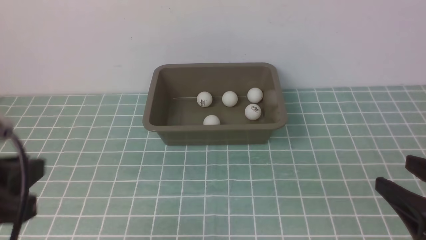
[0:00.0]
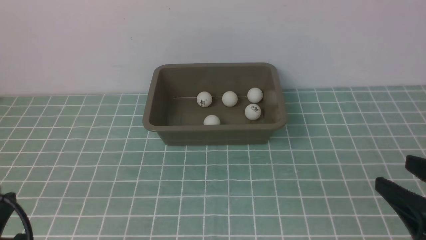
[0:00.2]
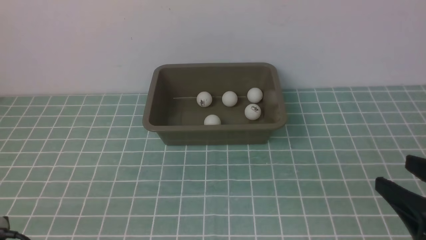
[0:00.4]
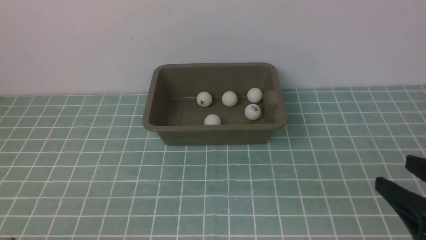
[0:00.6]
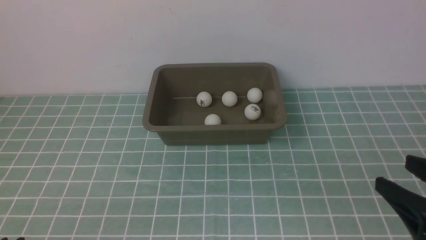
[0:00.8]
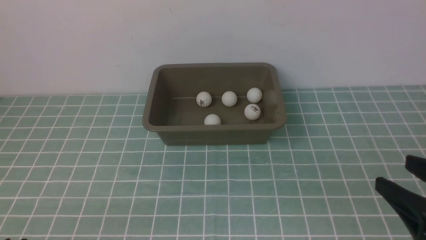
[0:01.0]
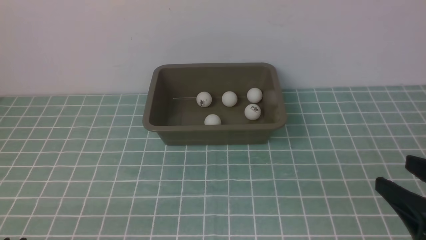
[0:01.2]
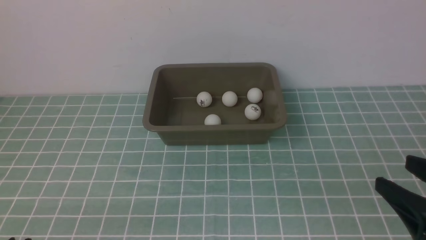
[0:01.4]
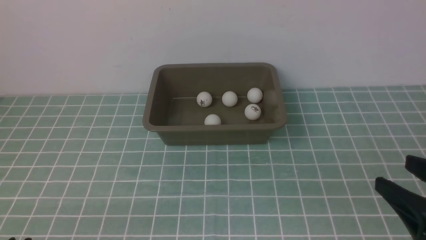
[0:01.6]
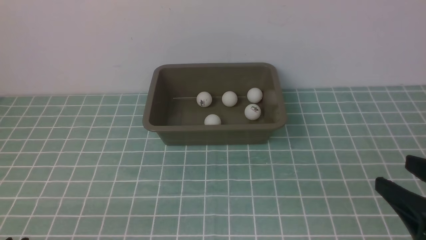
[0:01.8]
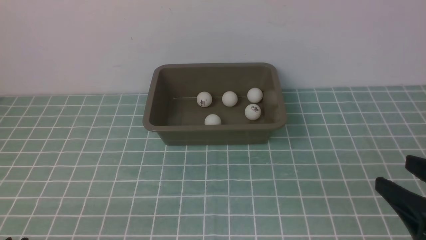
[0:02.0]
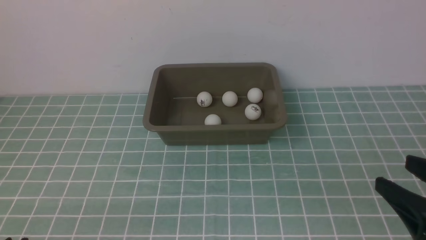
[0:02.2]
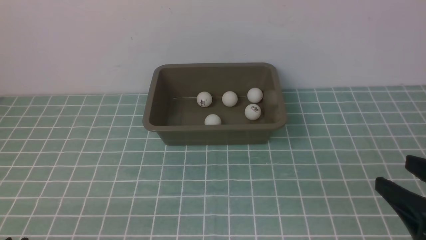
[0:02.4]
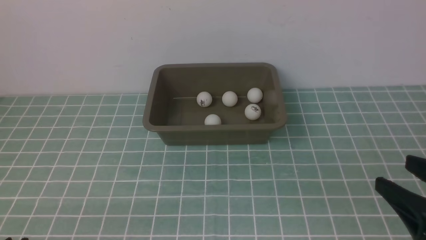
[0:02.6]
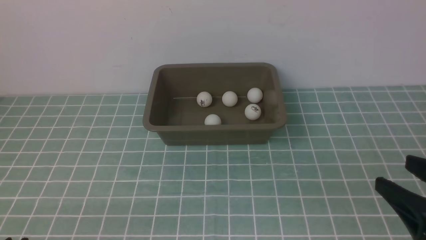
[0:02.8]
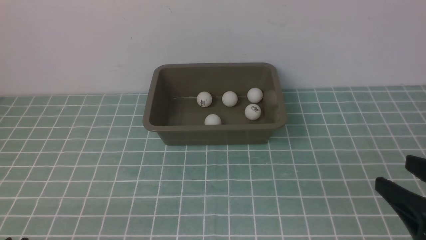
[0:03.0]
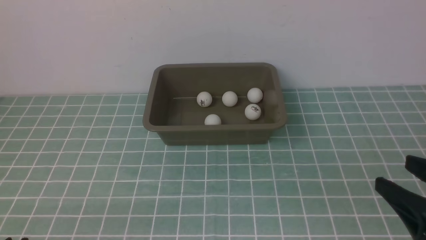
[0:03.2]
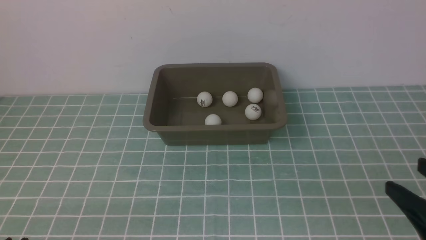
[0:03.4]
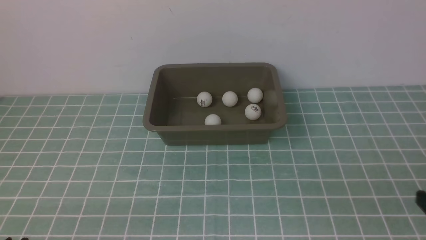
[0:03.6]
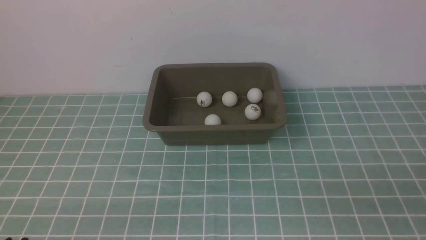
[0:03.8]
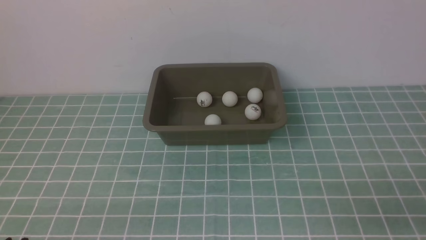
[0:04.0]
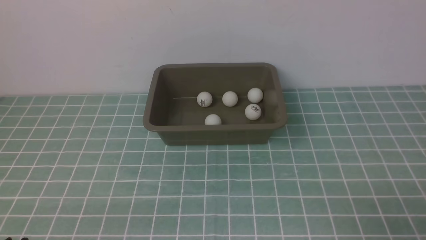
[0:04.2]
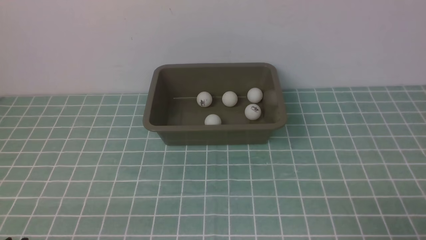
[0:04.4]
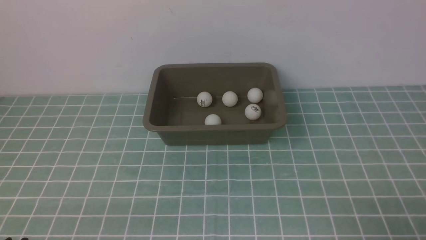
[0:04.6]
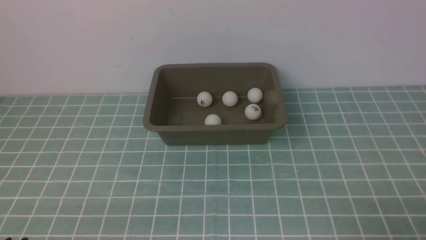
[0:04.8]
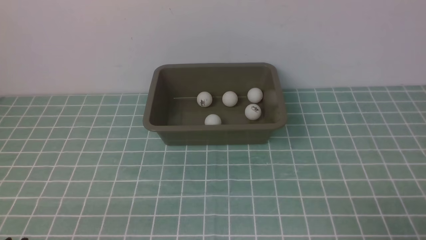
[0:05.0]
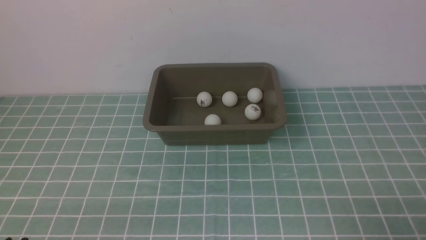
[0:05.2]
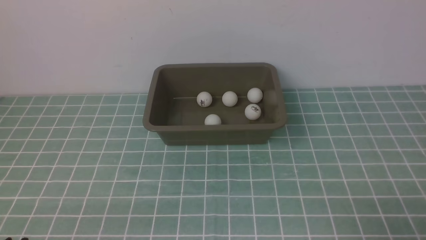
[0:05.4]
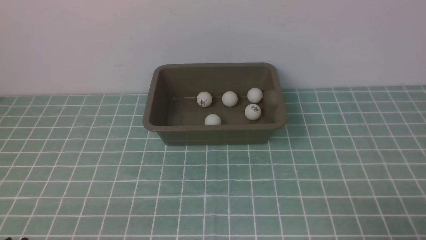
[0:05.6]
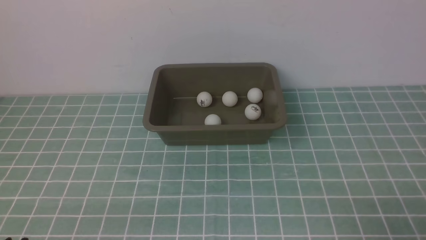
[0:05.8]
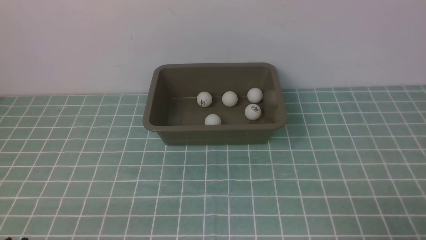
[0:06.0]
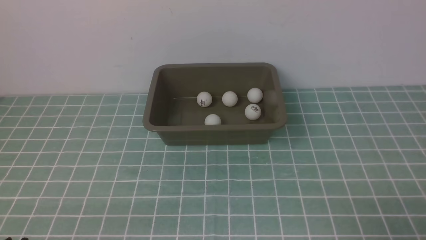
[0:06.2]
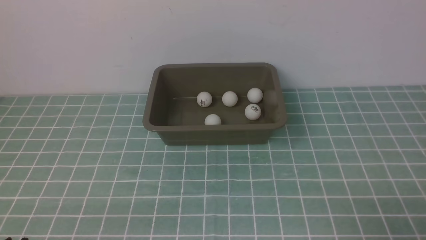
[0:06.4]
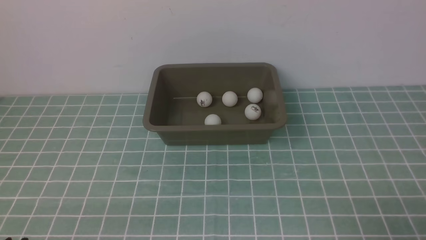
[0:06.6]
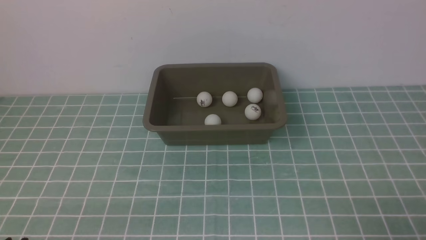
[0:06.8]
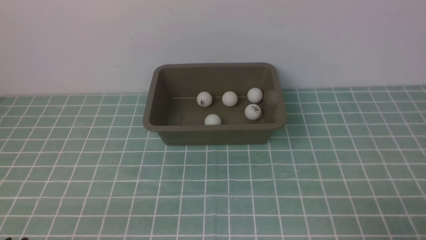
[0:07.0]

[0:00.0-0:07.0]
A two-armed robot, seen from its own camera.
0:00.0 to 0:01.4: The left gripper moves downward and backward, approximately 15 cm.
0:01.4 to 0:02.8: Both grippers stay put.
0:02.8 to 0:04.2: The right gripper shifts roughly 10 cm downward.
0:04.2 to 0:07.0: Both grippers stay put.

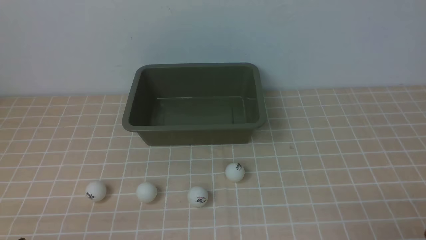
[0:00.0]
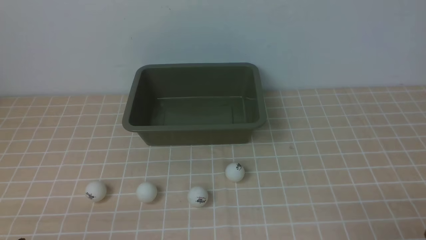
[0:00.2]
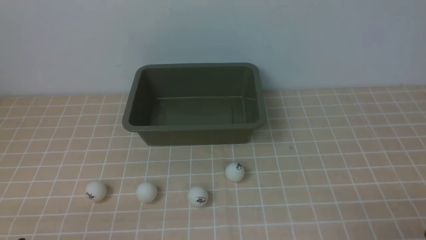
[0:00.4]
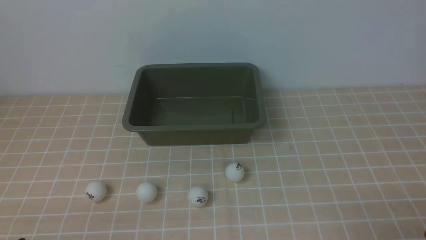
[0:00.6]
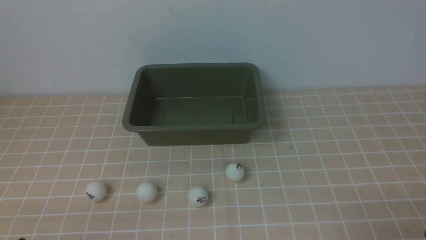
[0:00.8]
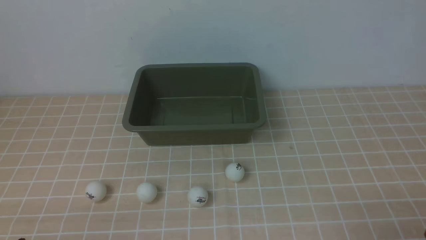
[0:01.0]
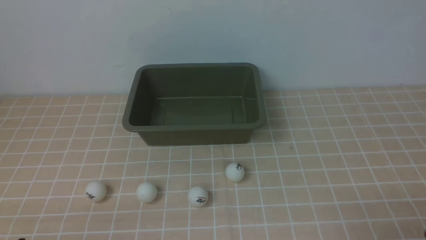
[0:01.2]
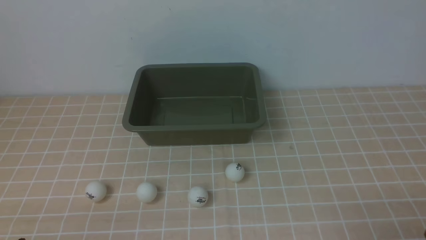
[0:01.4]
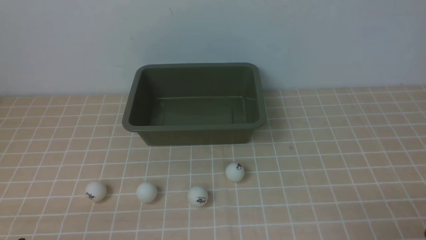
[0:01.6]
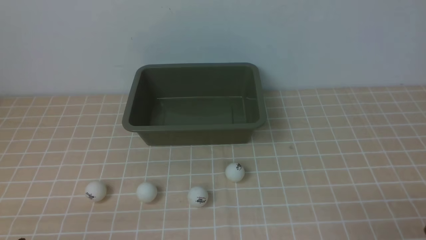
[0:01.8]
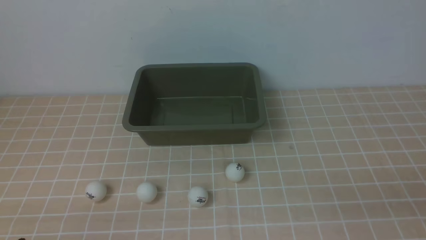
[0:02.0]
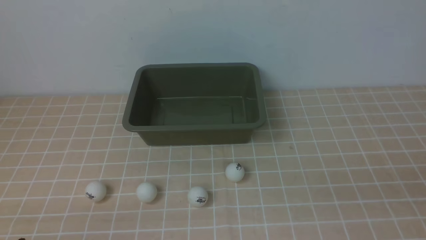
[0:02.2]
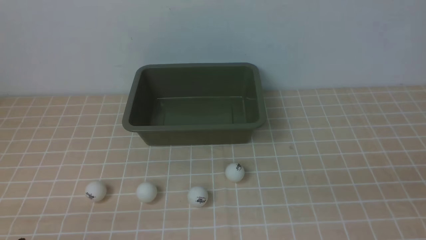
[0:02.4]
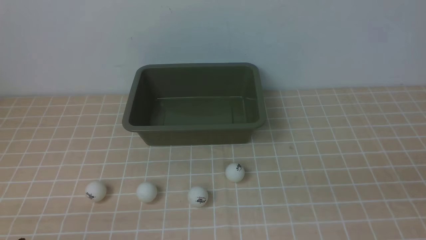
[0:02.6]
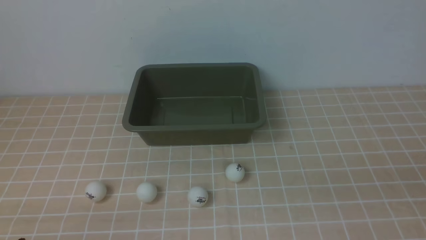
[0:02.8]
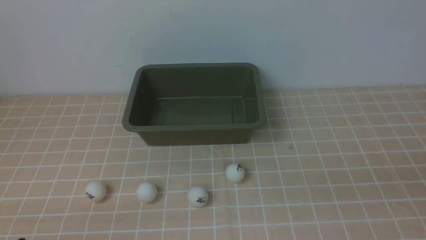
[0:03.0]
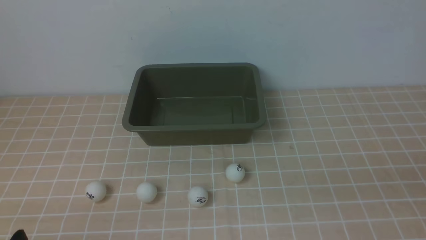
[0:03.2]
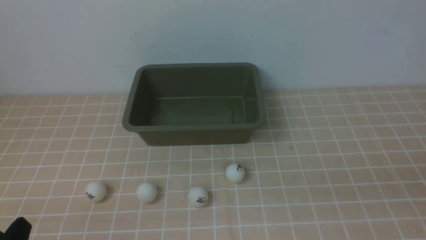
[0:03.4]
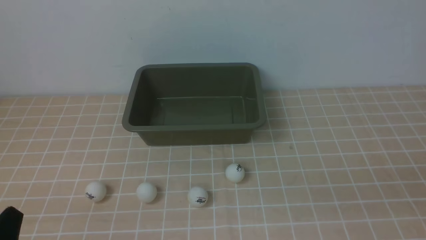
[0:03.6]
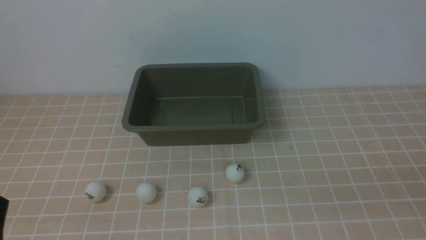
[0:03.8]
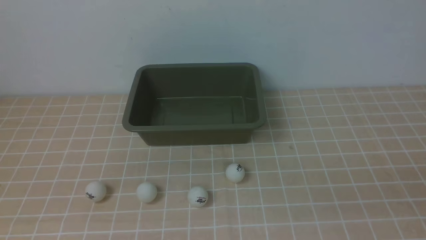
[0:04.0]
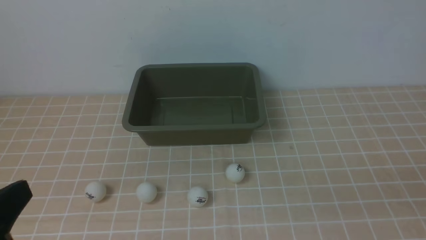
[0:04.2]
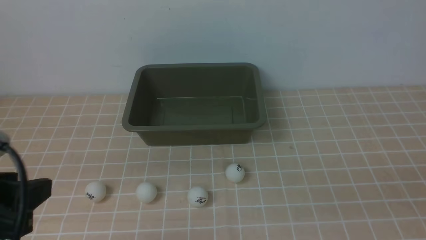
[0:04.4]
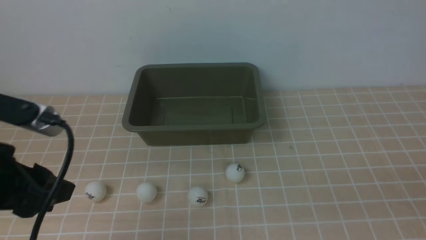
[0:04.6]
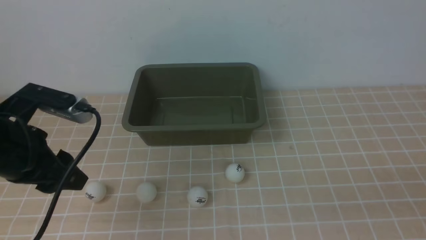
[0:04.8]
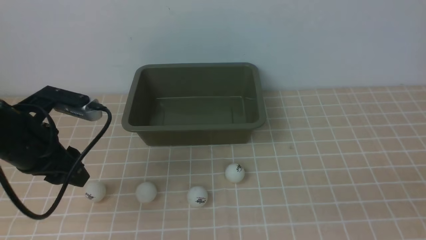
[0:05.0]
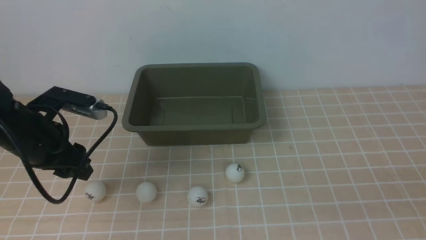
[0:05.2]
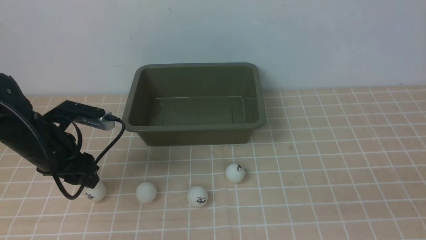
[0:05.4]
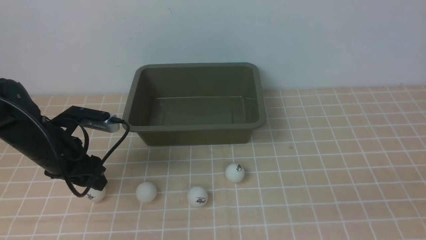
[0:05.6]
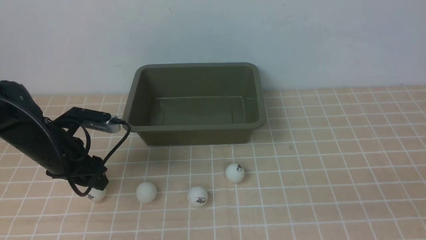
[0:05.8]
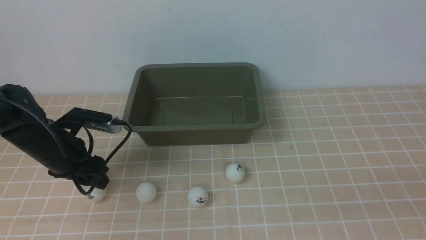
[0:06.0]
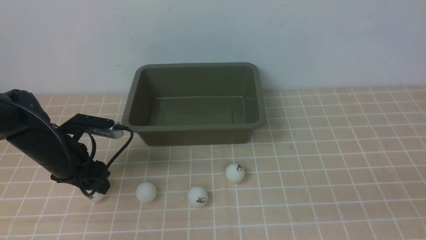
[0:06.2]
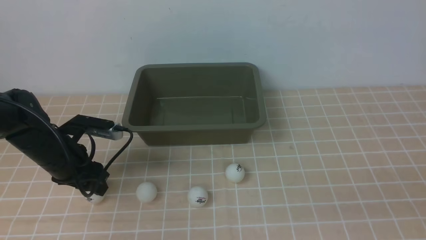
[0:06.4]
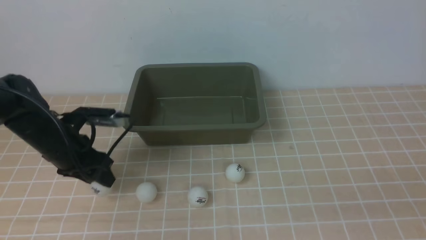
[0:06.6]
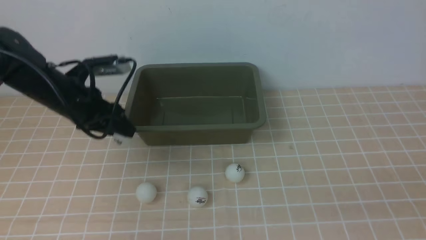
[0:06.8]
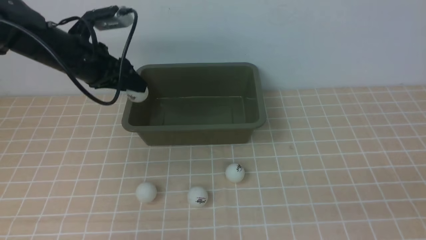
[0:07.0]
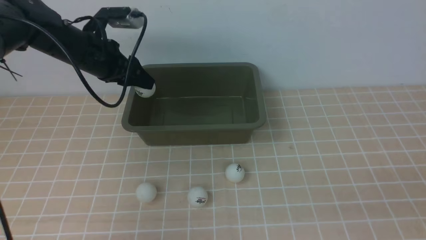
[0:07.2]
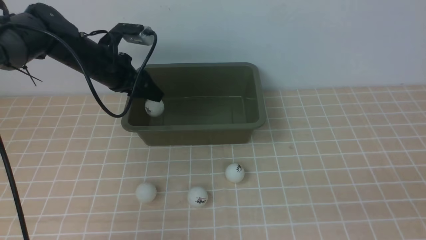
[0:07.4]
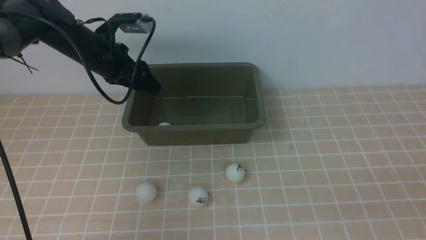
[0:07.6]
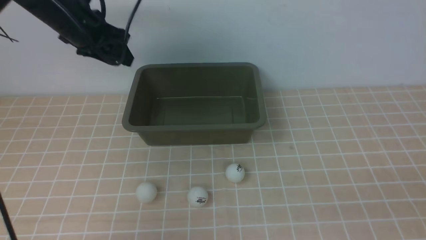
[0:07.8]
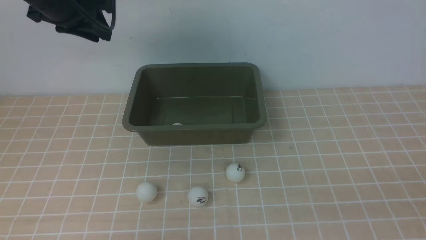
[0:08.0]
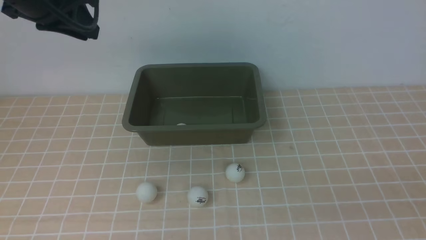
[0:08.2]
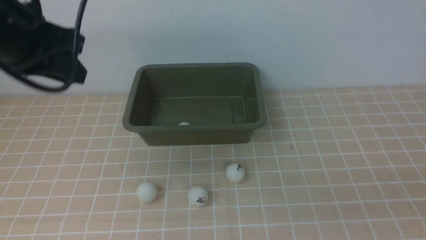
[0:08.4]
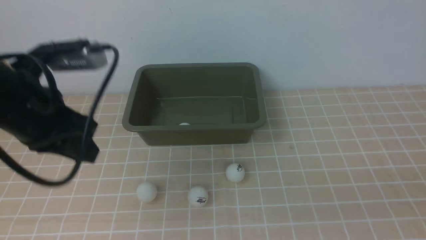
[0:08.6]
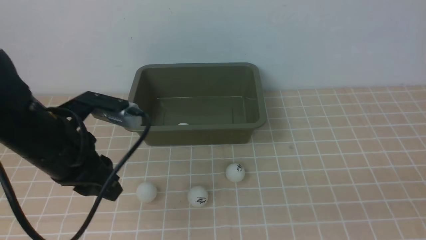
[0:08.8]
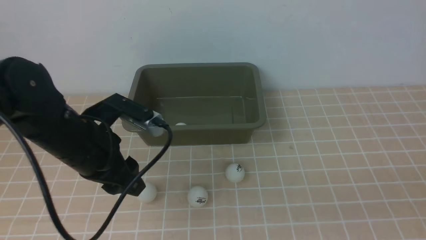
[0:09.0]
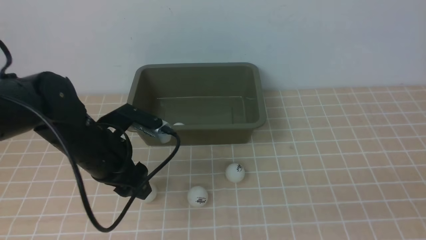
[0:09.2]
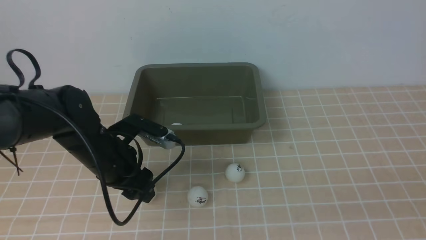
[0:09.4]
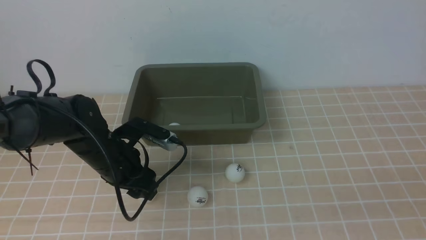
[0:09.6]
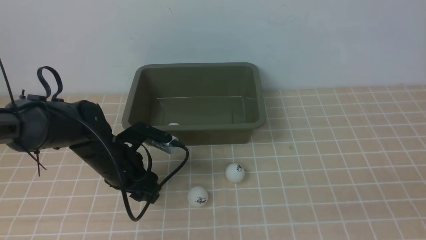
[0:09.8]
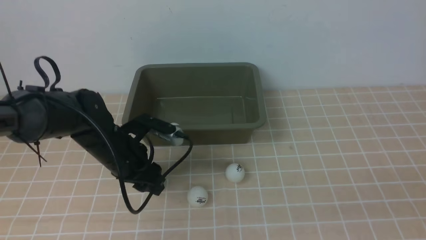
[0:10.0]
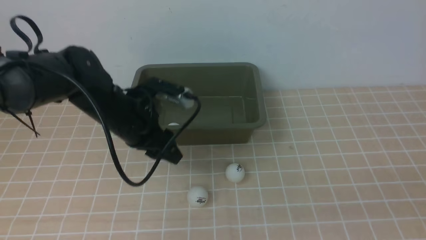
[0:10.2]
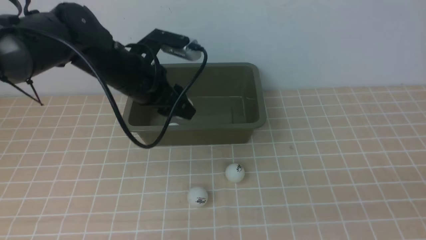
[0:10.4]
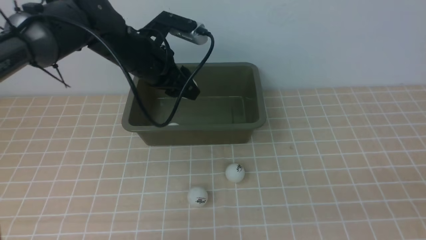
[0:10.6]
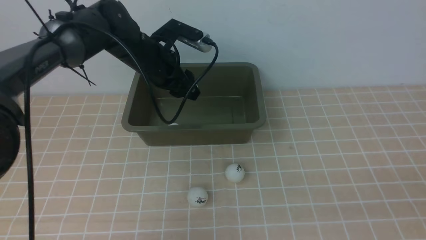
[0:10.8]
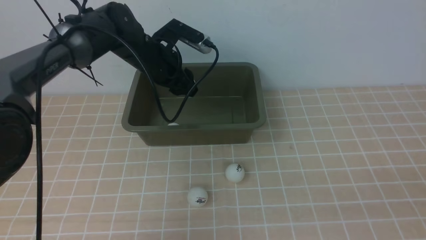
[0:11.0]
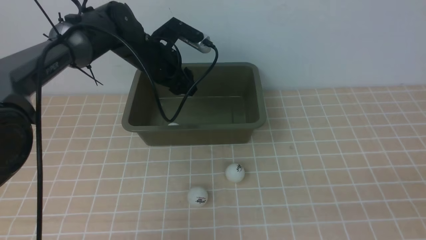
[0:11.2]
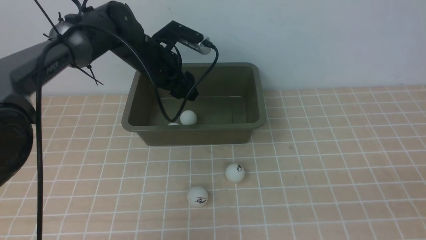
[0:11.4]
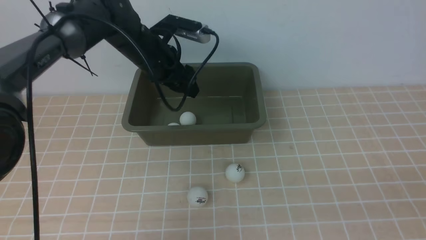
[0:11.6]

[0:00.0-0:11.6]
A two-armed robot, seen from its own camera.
Step, 0:00.0 to 0:06.6: use the left arm to clamp the table tennis ball closest to it.
Step, 0:06.8 to 0:07.8: use the left arm to put the table tennis ball into the box.
Step, 0:08.0 to 0:10.4: use the left arm to clamp the table tennis ball closest to it.
Step, 0:10.6 to 0:11.6: use the left arm to put the table tennis ball into the box.
0:00.0 to 0:01.4: Both grippers stay about where they are.
0:02.8 to 0:04.4: The left gripper travels upward and forward by approximately 15 cm.
0:04.4 to 0:05.8: The left gripper moves forward and downward, approximately 25 cm.
0:05.8 to 0:07.2: The left gripper goes approximately 15 cm forward and upward.
0:07.2 to 0:08.8: The left gripper is displaced backward by approximately 20 cm, and closes up.
0:08.8 to 0:10.2: The left gripper is displaced forward and to the right by some 10 cm, and opens up. The right gripper closes.
0:10.2 to 0:11.6: The left gripper goes some 10 cm forward and upward, and opens up.
